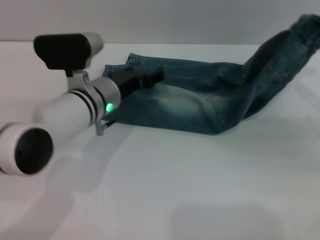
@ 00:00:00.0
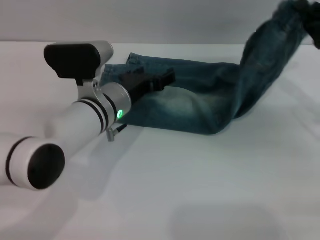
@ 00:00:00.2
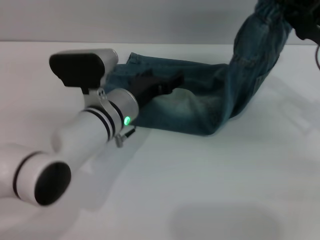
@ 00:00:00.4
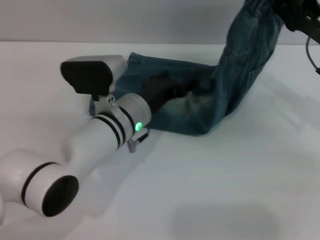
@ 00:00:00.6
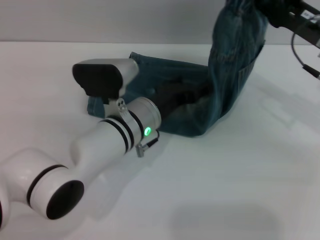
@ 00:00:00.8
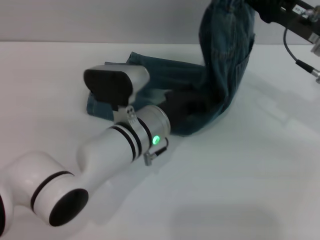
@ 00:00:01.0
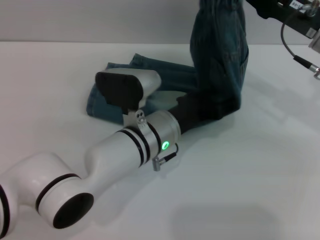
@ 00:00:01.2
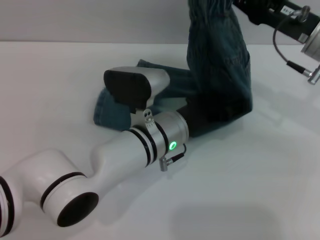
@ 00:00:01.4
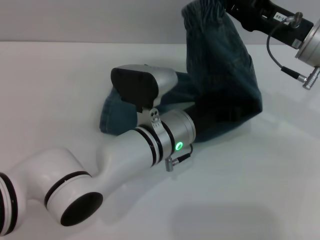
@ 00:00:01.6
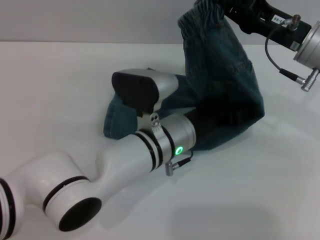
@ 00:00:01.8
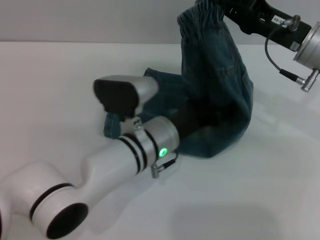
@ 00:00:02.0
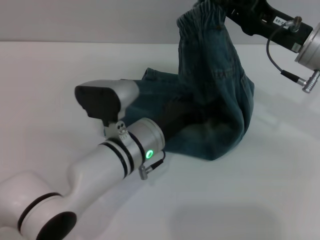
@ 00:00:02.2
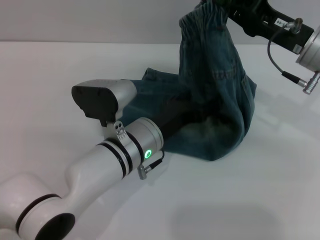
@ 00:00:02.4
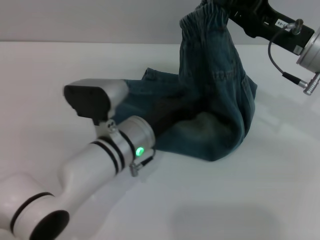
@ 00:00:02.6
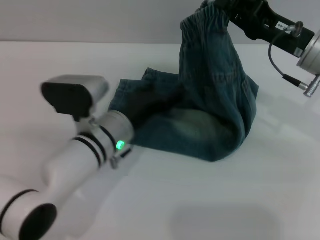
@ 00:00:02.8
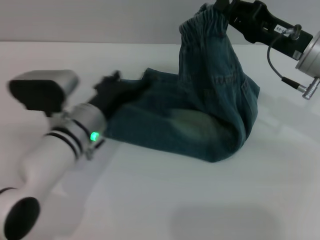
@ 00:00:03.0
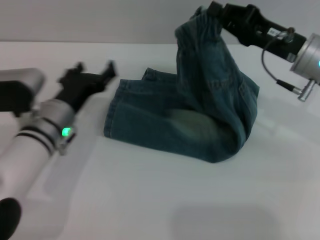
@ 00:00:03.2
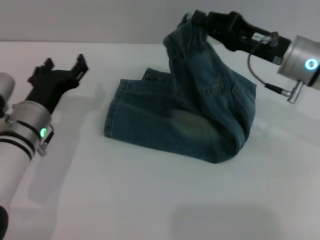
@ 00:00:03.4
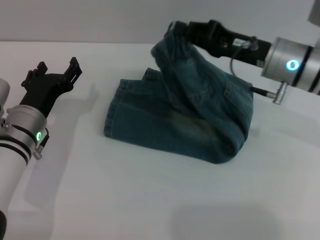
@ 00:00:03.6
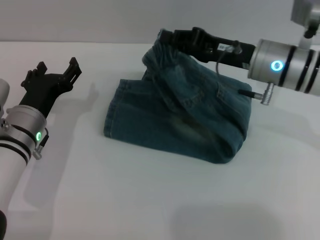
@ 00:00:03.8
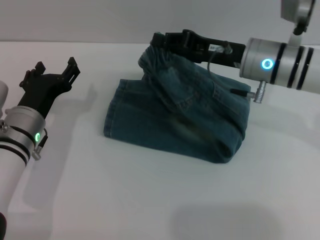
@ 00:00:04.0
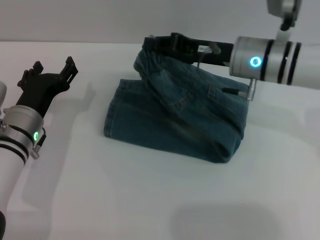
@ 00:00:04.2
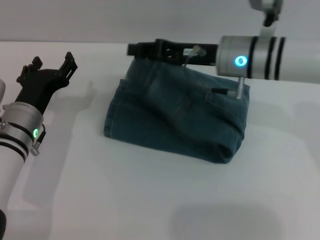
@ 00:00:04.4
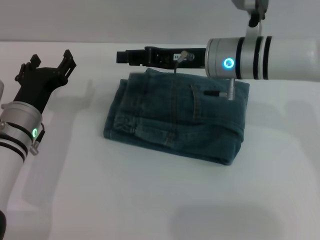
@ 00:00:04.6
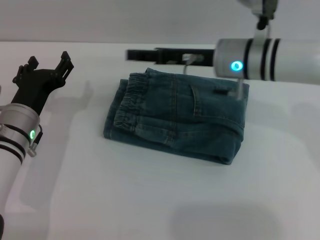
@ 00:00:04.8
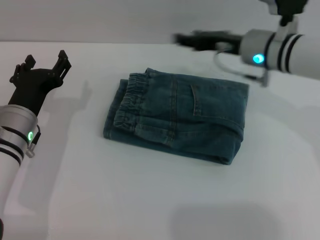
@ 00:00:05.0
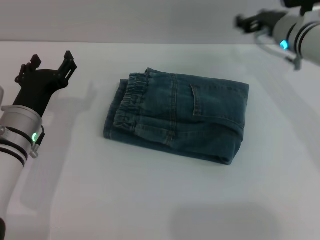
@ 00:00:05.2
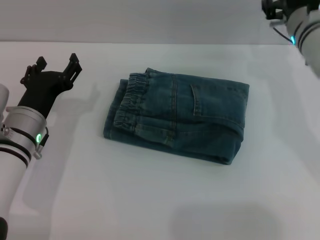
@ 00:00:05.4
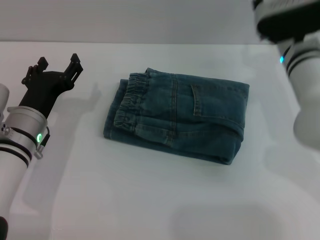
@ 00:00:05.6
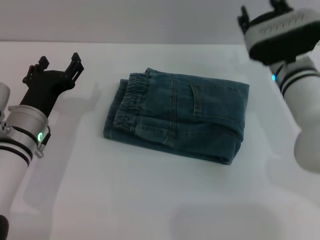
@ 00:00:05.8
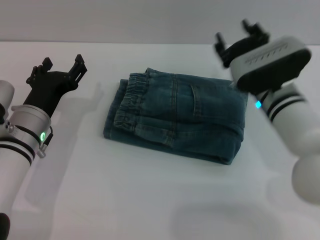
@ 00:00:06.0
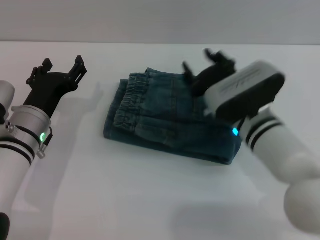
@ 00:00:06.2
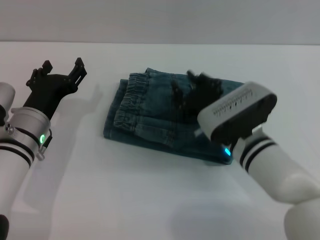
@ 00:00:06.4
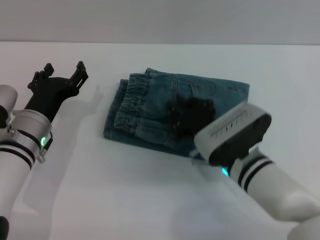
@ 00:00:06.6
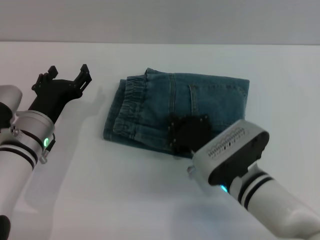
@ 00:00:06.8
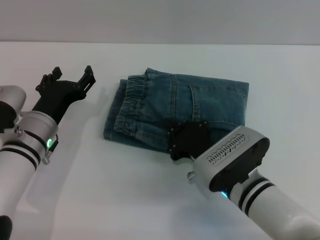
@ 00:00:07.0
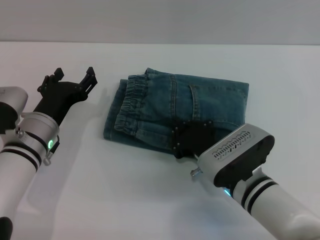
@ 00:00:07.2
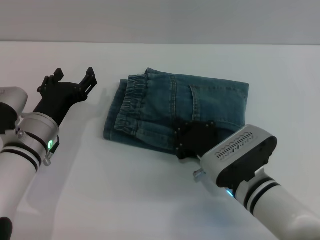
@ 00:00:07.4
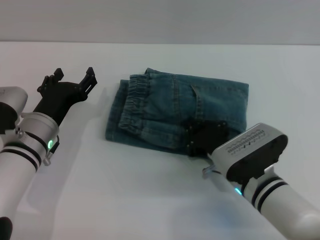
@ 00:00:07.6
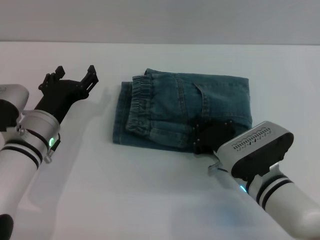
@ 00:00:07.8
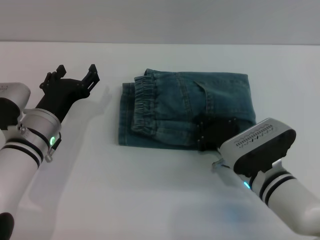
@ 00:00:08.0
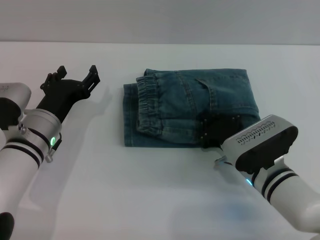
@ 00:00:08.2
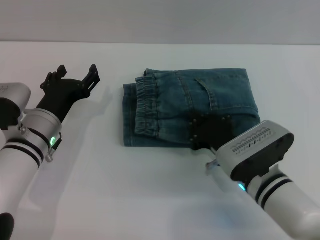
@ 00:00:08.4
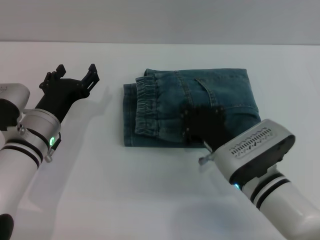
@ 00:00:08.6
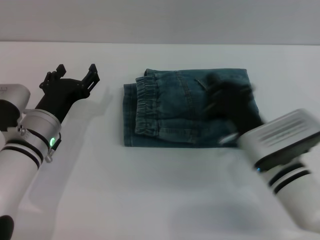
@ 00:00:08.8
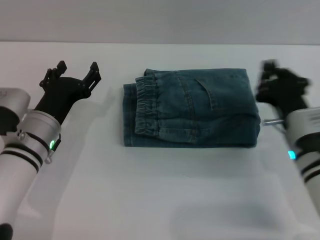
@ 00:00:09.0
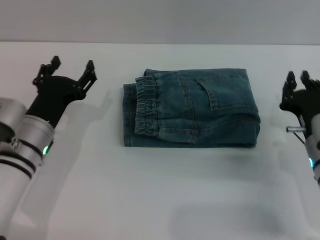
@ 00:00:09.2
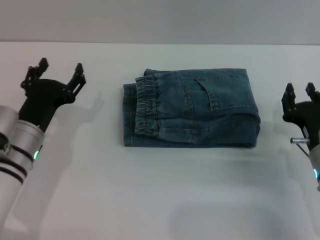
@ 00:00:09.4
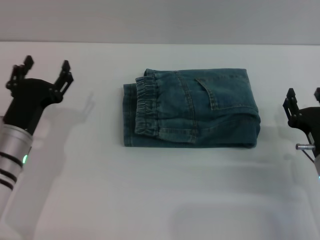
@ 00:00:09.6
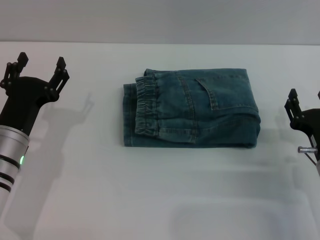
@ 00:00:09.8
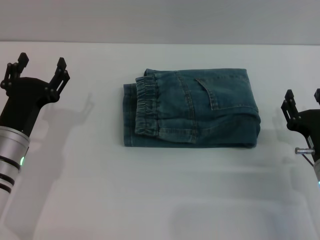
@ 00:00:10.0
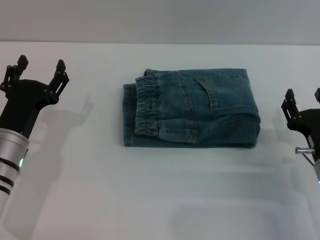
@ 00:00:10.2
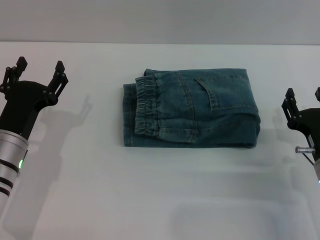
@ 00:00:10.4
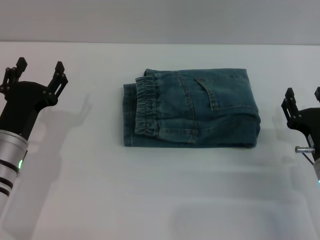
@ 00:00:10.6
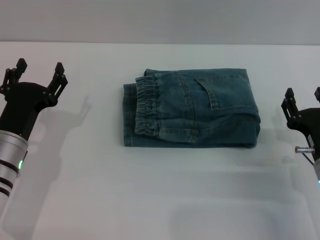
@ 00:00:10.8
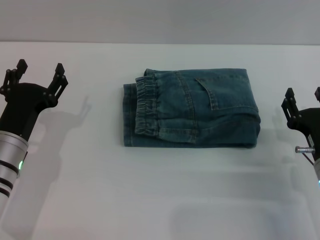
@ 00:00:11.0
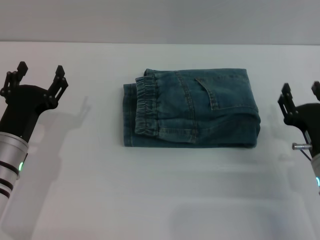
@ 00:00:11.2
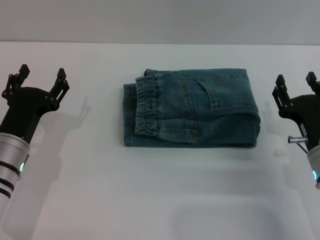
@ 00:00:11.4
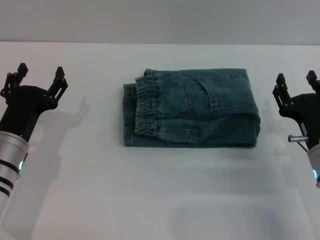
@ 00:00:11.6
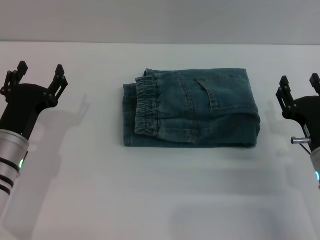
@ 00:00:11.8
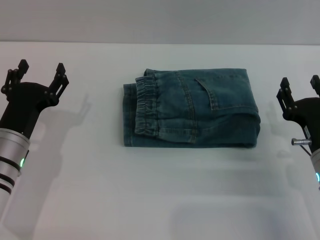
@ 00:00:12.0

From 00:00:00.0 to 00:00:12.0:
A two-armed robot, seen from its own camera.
Step, from 00:00:00.0 to 00:00:04.4: Fold the pants from right to left with the right gripper.
Step, from 00:00:04.6 to 00:00:08.8: Place the folded trousers onto the center area with the right grippers.
From 00:00:00.0 to 00:00:01.6: The left gripper shifts about 10 cm to the right and backward. The right gripper heads to the left and forward, covering about 10 cm.
From 00:00:01.6 to 00:00:03.0: The left gripper is displaced to the left by about 15 cm.
From 00:00:03.0 to 00:00:04.4: Both grippers travel together to the left, some 10 cm.
From 00:00:04.4 to 00:00:06.0: The right gripper goes roughly 5 cm downward, and opens.
From 00:00:06.0 to 00:00:07.6: The right gripper is displaced backward and downward by approximately 10 cm, and closes up.
From 00:00:07.6 to 00:00:09.0: The right gripper heads to the right, covering about 5 cm.
From 00:00:09.0 to 00:00:10.4: The right gripper changes place by about 5 cm, and opens its fingers. The left gripper shifts by some 5 cm.
From 00:00:10.4 to 00:00:12.0: The grippers move only a little.

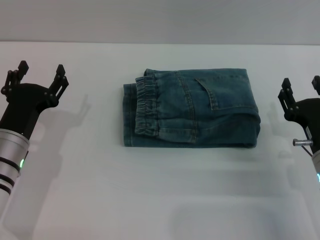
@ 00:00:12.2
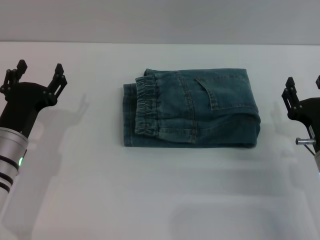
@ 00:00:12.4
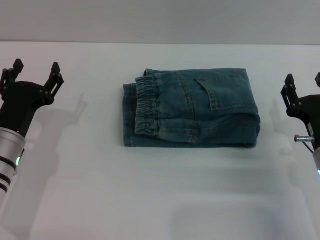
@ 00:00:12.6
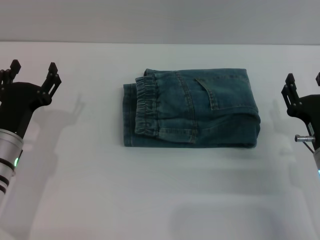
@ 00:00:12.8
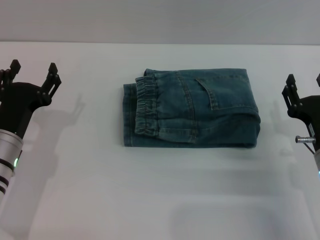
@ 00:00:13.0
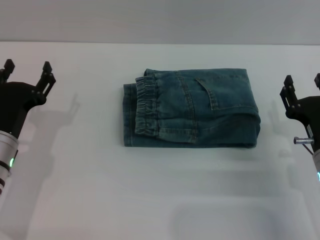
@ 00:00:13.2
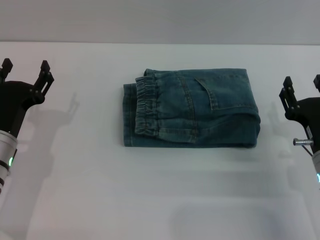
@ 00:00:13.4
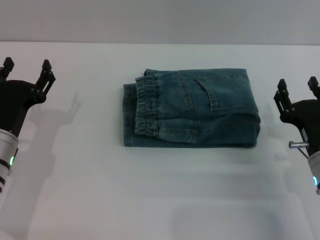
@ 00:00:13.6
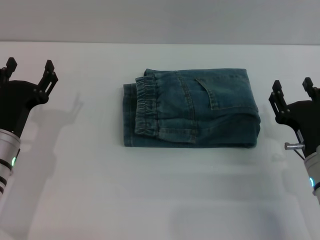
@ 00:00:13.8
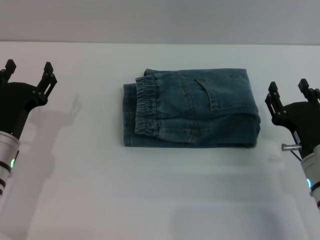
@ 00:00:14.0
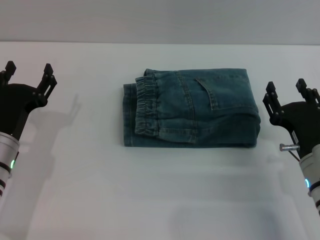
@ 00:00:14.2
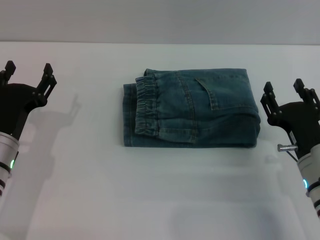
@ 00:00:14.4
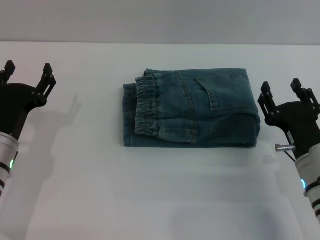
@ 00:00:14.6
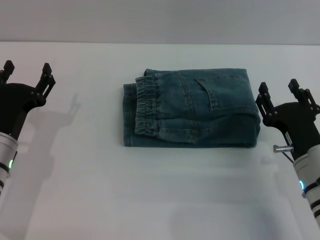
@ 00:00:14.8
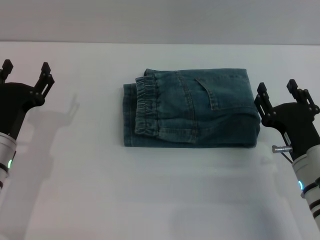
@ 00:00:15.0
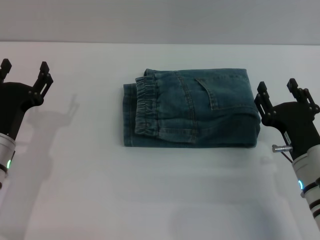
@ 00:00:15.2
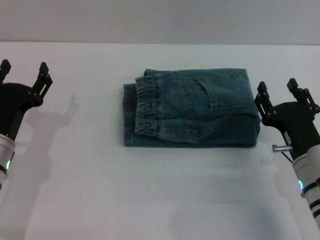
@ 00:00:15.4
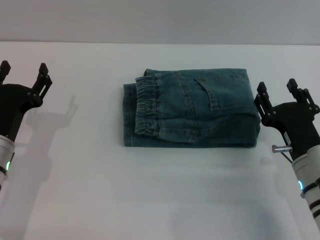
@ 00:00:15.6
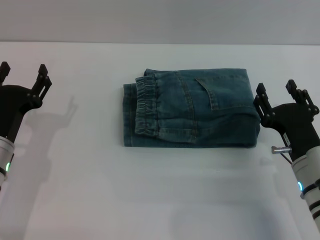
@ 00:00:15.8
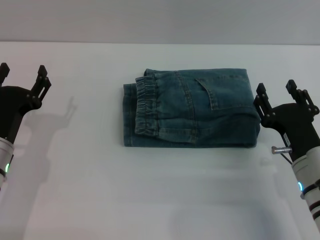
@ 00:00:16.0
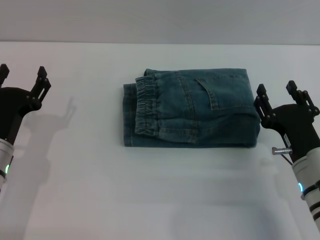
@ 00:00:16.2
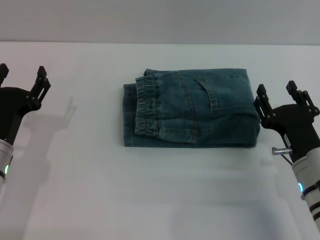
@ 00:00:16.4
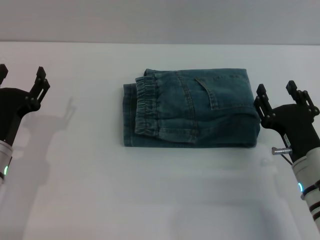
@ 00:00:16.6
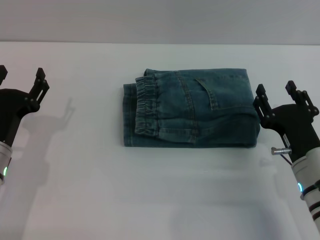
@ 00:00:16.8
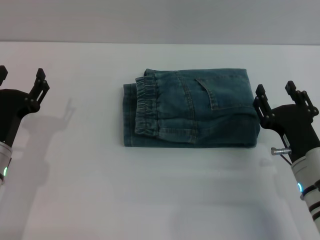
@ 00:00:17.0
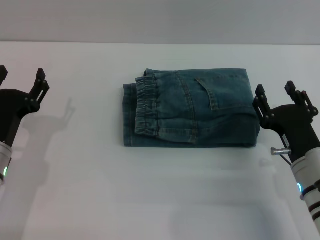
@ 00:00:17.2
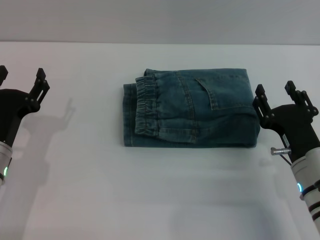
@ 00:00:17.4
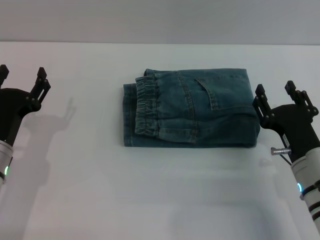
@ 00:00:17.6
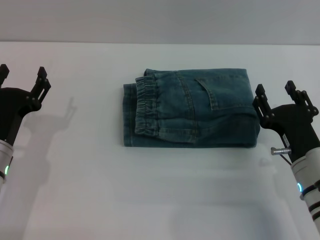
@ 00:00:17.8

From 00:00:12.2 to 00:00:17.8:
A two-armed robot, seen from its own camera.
From 00:00:12.2 to 00:00:13.6: Neither gripper changes place.
From 00:00:13.6 to 00:00:15.0: There are only small adjustments of the grippers.
From 00:00:15.0 to 00:00:17.8: Both grippers stay put.
